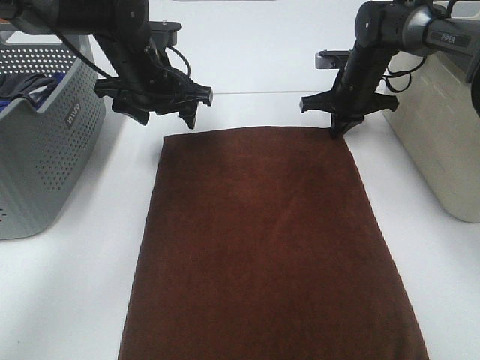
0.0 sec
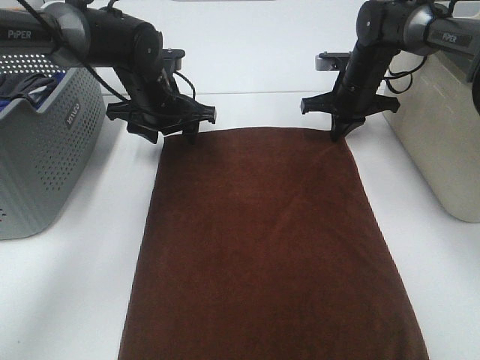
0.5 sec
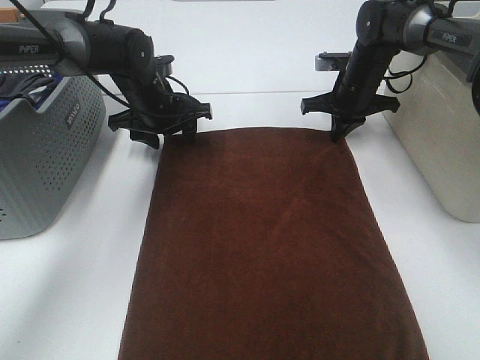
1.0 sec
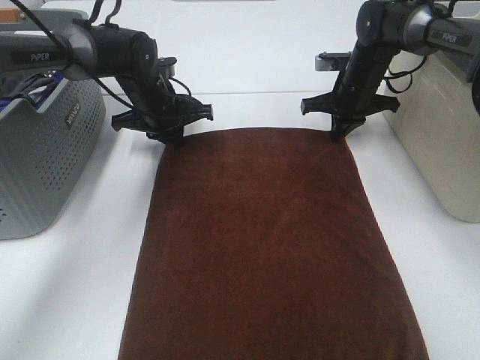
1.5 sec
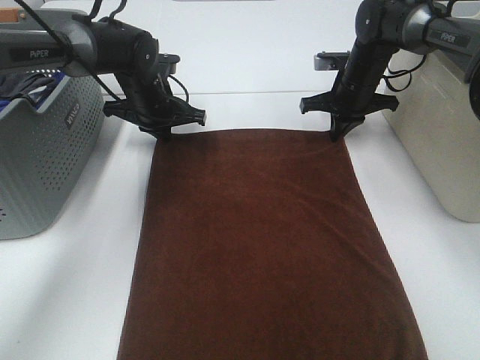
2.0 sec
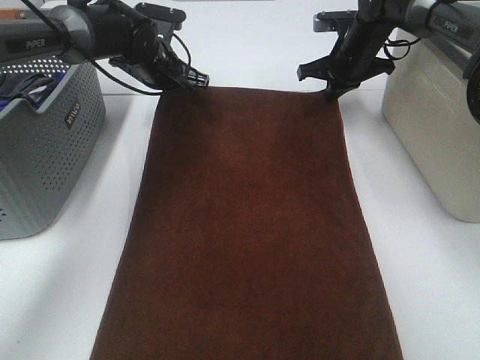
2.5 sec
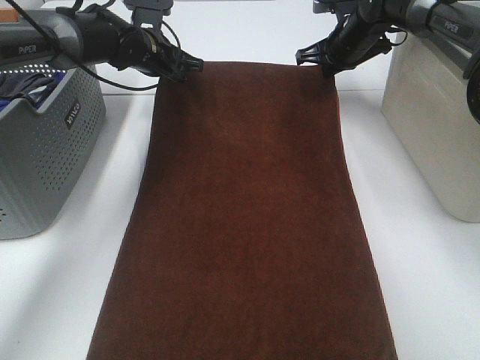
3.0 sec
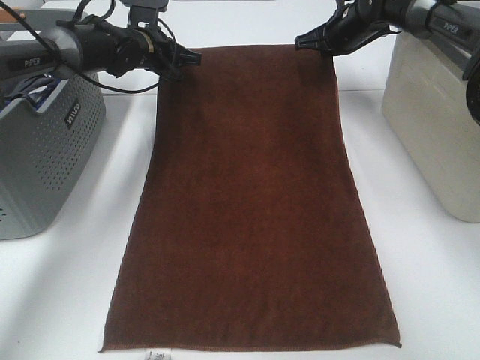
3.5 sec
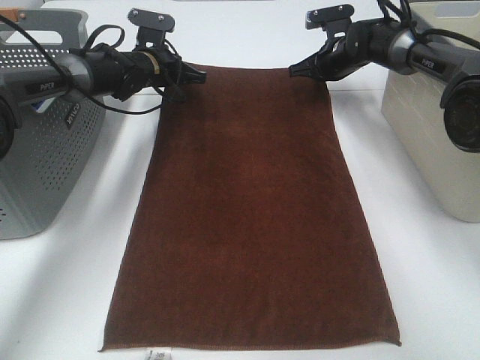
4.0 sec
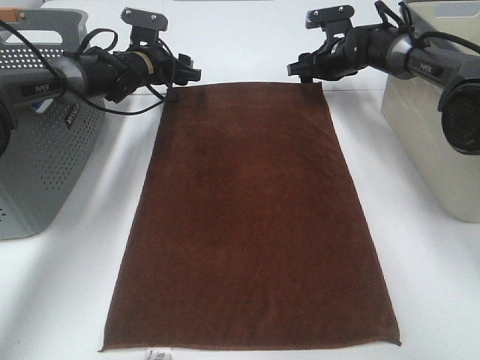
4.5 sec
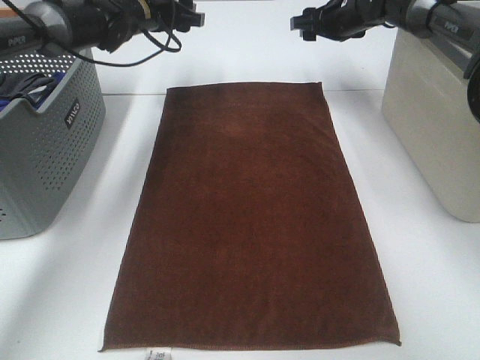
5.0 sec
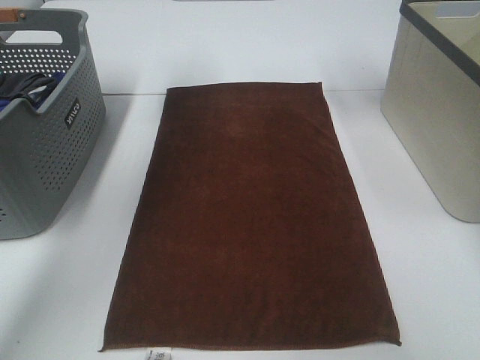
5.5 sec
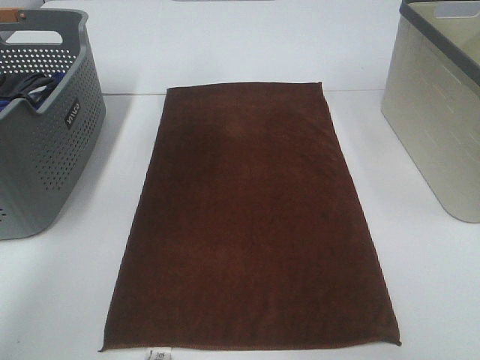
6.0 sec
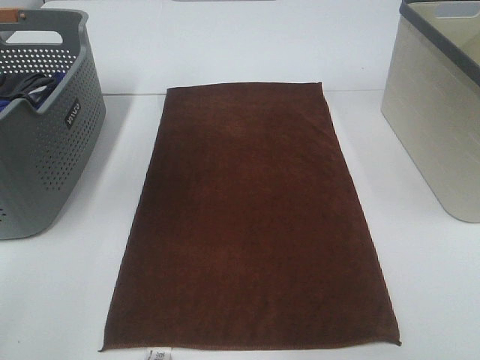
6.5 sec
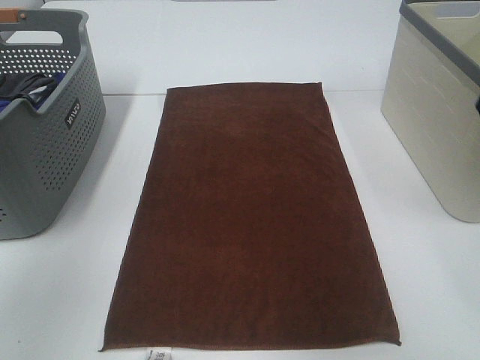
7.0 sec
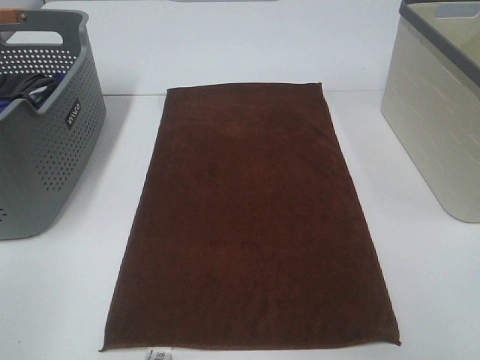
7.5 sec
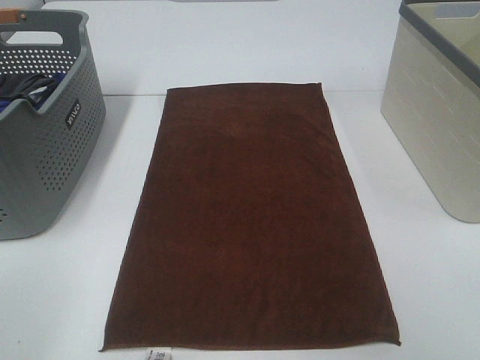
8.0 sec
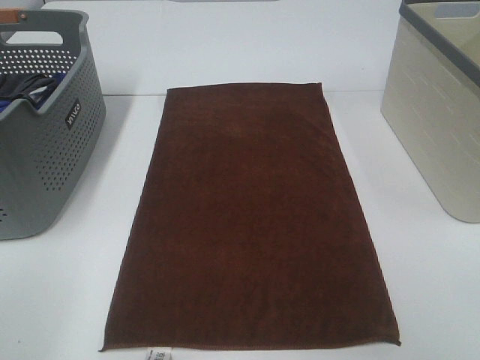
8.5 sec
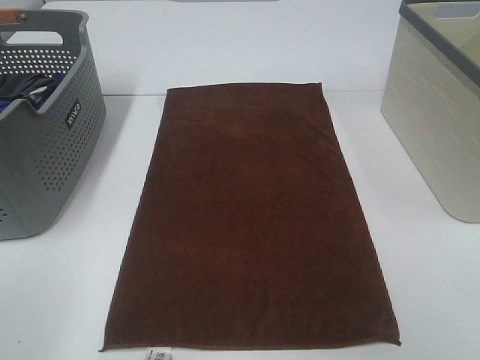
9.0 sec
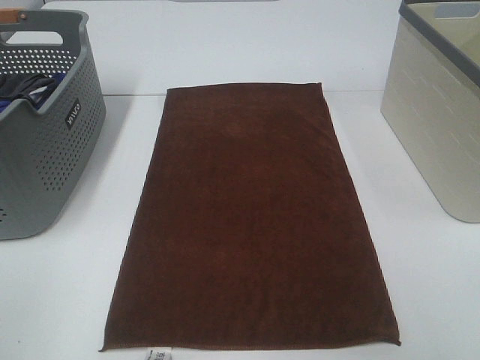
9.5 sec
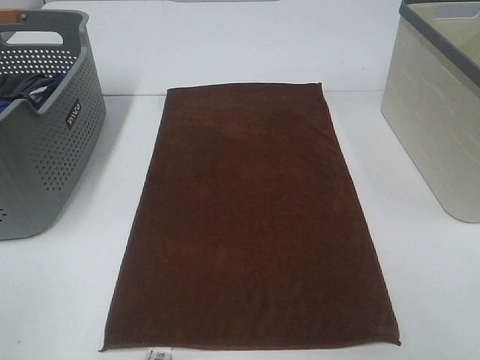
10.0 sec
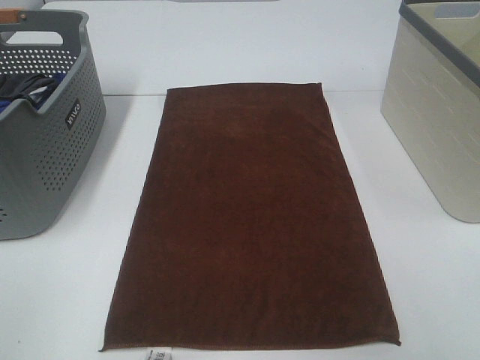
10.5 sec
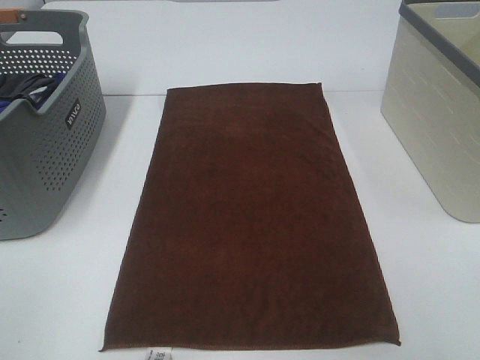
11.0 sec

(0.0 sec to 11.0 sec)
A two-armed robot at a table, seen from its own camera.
Task of the whole recording: Remove the towel and place it.
0.0 sec - 2.0 sec: The left gripper shifts roughly 10 cm downward and forward, and closes up.
2.0 sec - 3.5 sec: The right gripper moves upward and forward, some 10 cm. The left gripper goes about 5 cm forward.
3.5 sec - 5.5 sec: The grippers both shift upward by approximately 15 cm. The right gripper opens its fingers. The left gripper opens.
5.5 sec - 7.5 sec: Both grippers move backward, some 50 cm.

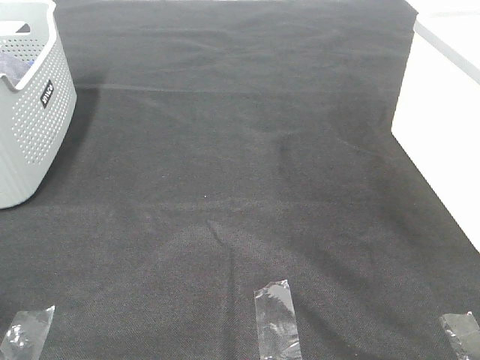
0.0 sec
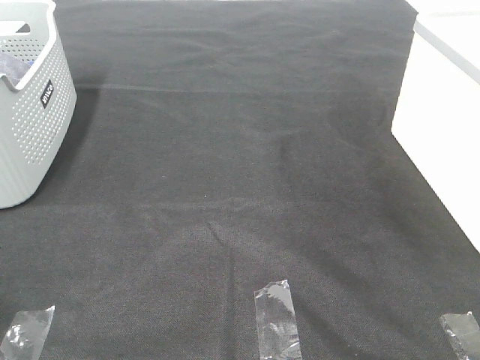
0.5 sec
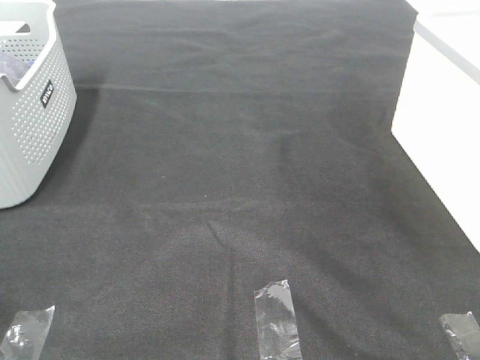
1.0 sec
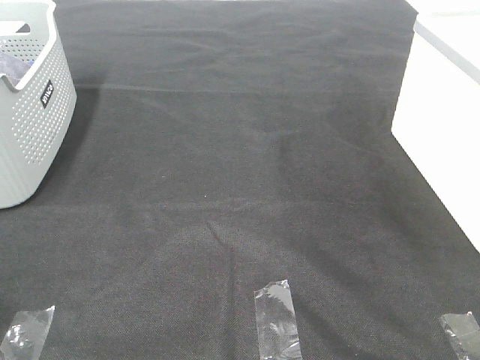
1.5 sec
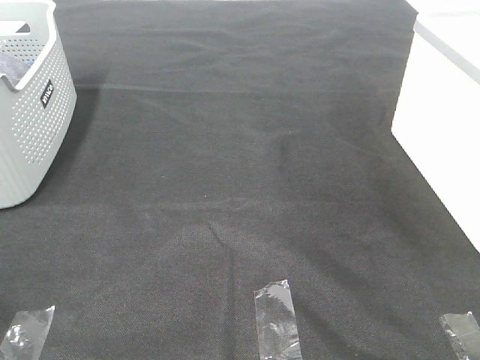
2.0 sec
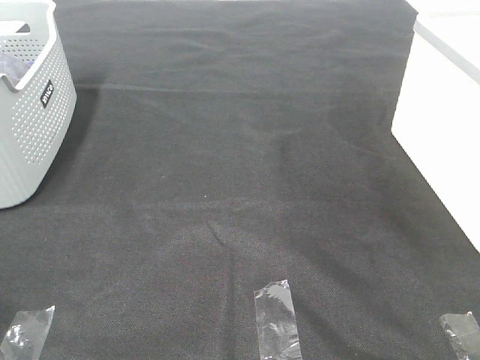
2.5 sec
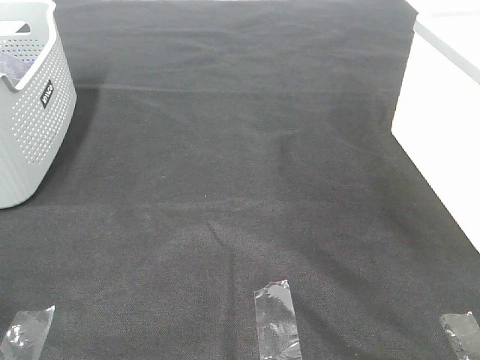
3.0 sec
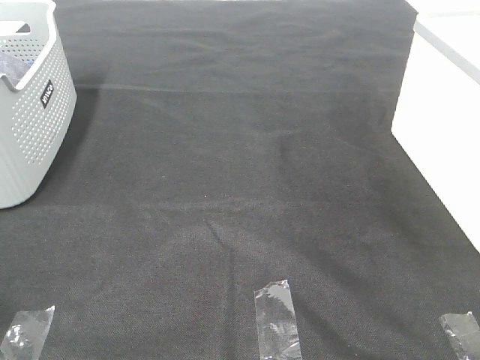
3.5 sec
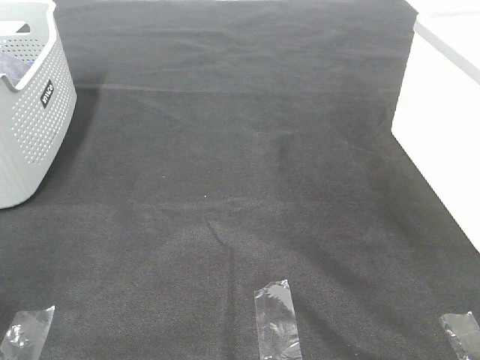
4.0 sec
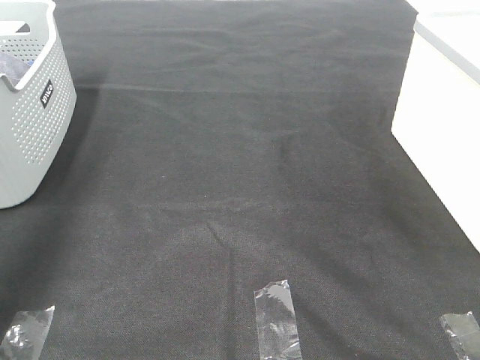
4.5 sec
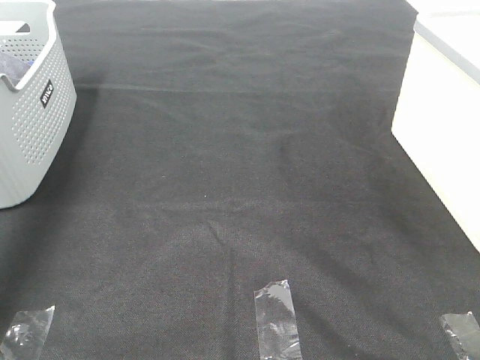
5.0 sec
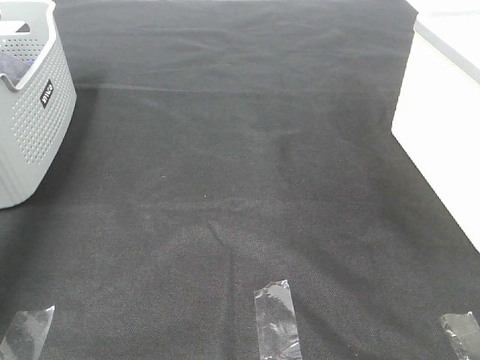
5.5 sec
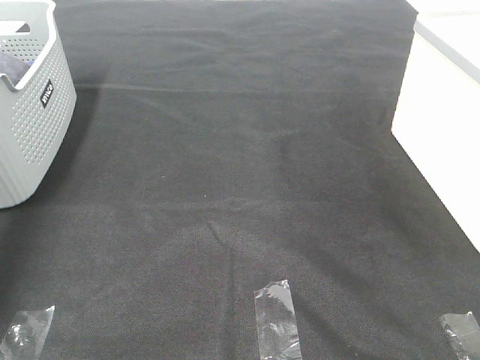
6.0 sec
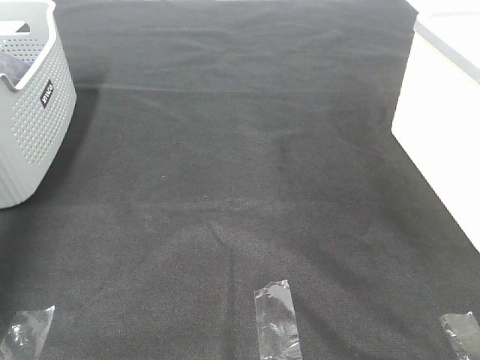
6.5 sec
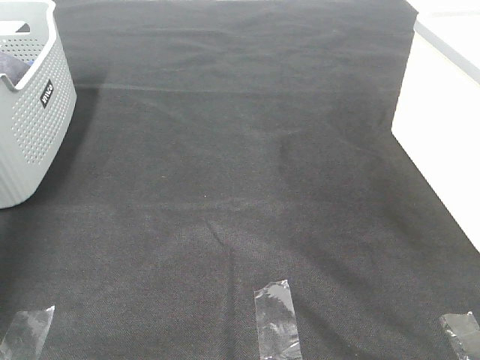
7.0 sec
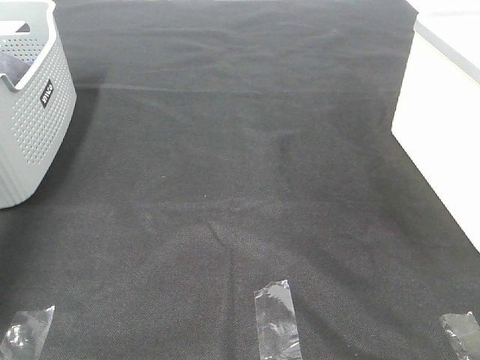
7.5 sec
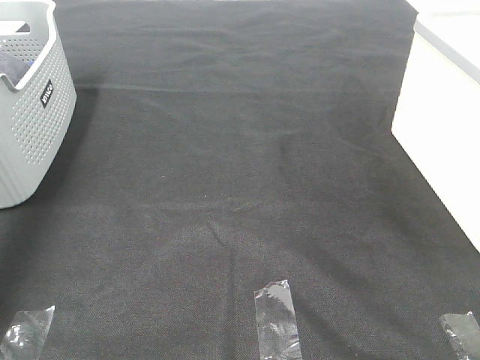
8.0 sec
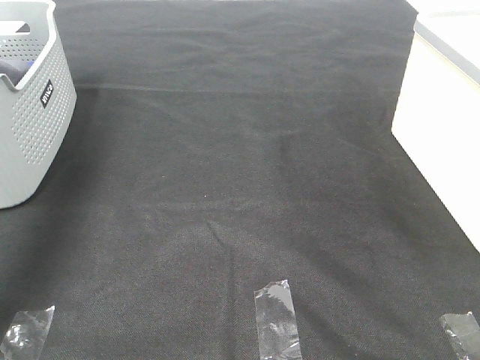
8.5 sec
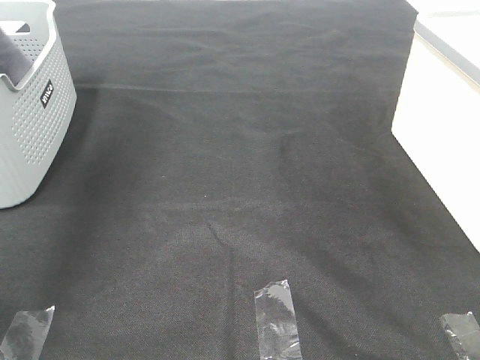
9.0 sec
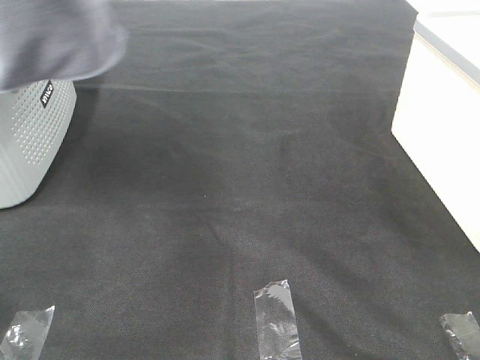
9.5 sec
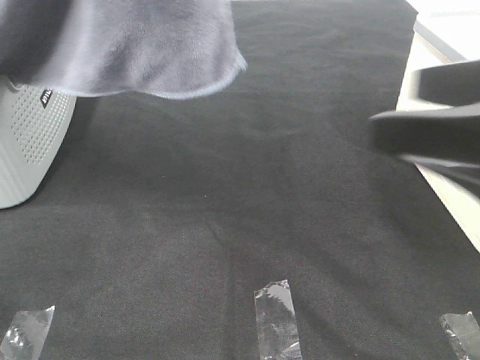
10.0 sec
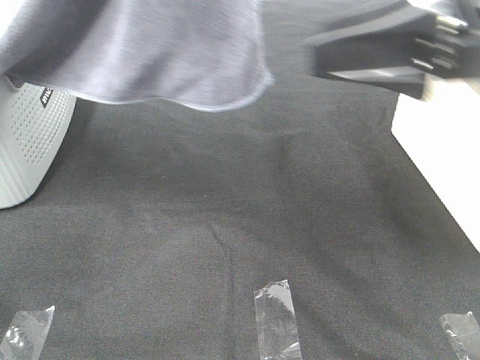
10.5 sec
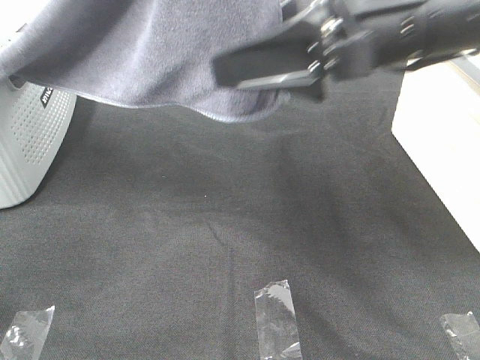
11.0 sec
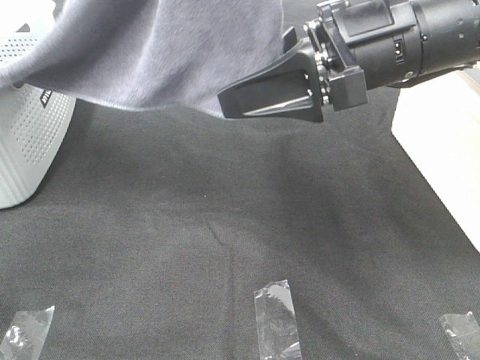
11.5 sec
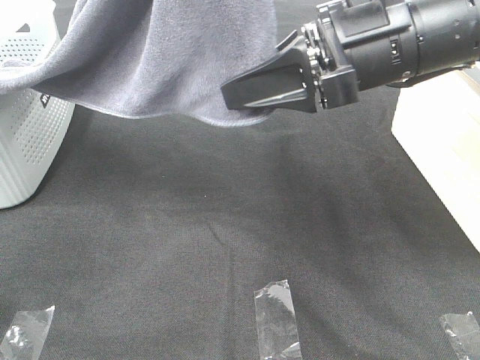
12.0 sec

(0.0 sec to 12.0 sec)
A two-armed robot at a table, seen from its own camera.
Task of the whole recording: Remove the towel and place it.
0.0 sec - 2.0 sec: Both grippers stay about where they are.
4.0 sec - 6.0 sec: The left gripper is displaced forward by roughly 40 cm.
8.0 sec - 10.0 sec: The right gripper travels forward by about 15 cm; the left gripper is displaced to the right, backward and upward by approximately 40 cm.
10.0 sec - 12.0 sec: The right gripper shifts approximately 15 cm forward and to the left, and closes.

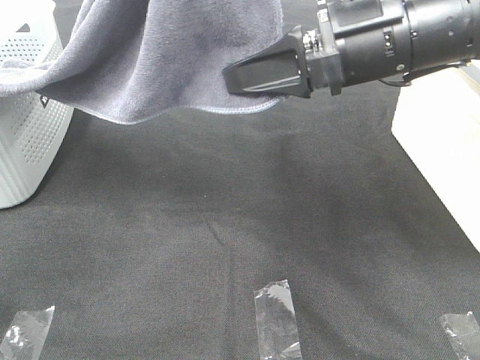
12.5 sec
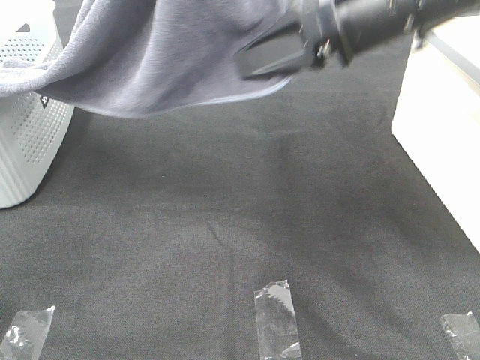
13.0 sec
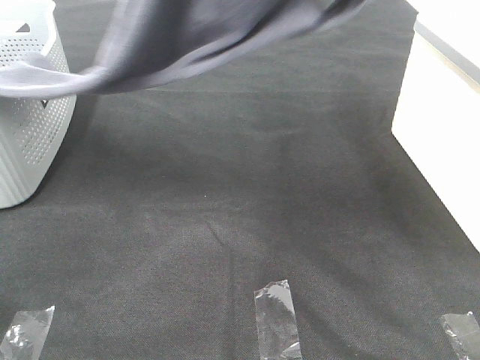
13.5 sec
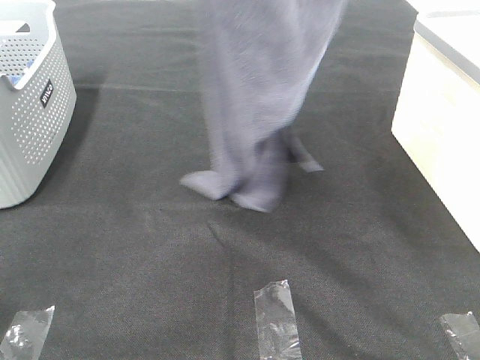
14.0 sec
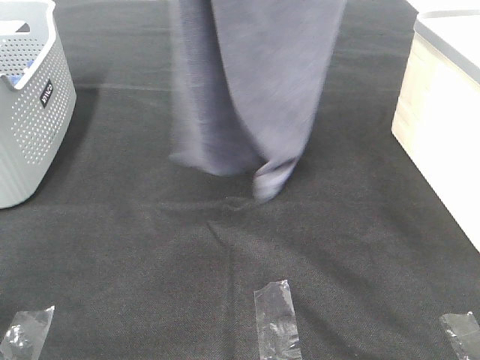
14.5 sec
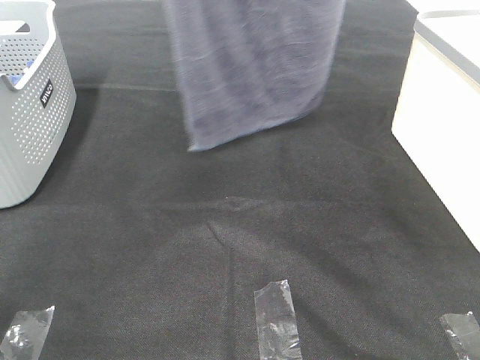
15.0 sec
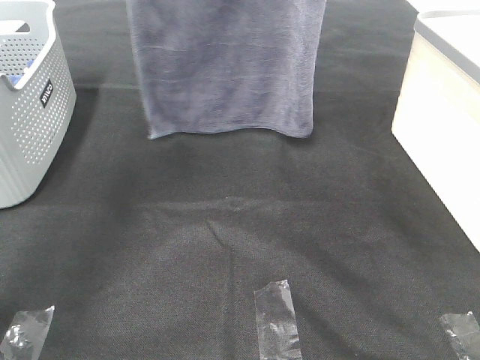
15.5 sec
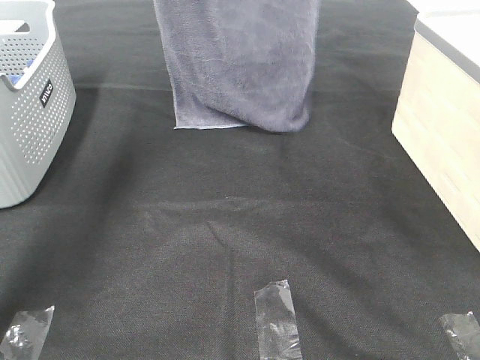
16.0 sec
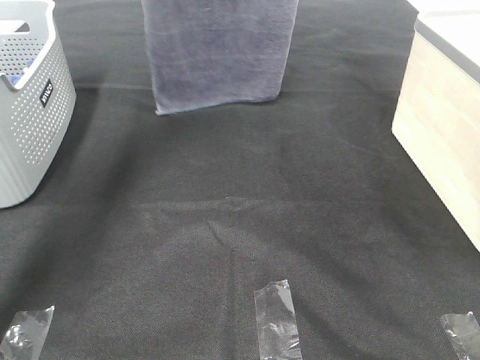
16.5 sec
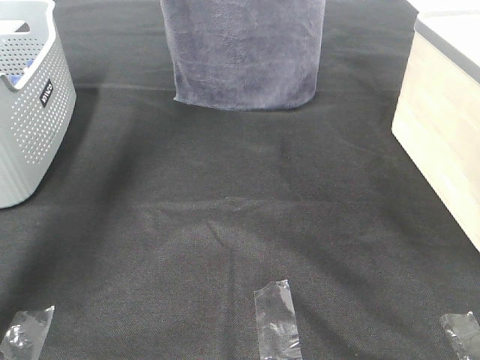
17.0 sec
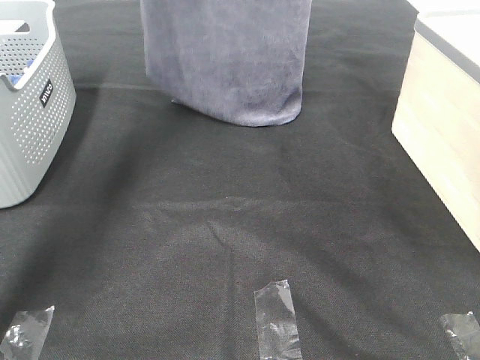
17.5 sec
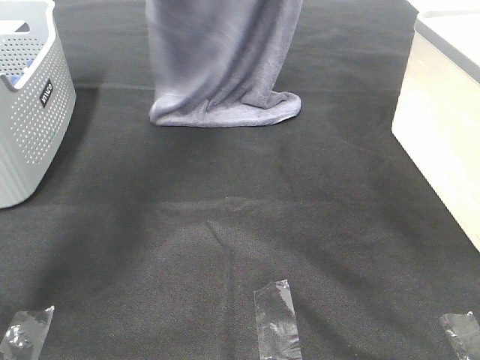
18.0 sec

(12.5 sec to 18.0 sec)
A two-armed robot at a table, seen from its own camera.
Task of the whole recording: Remove the towel and place it.
12.5 sec - 14.5 sec: The left gripper goes roughly 15 cm forward and to the left; the right gripper is displaced upward by approximately 25 cm.
14.5 sec - 16.0 sec: The left gripper moves forward and downward, roughly 20 cm; the right gripper is displaced forward and downward by some 15 cm.
16.0 sec - 18.0 sec: The left gripper moves roughly 5 cm.
